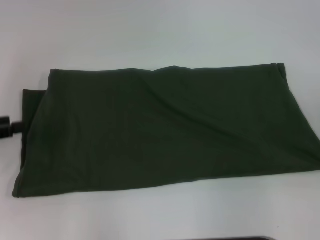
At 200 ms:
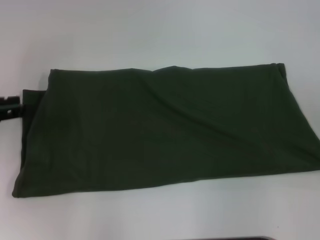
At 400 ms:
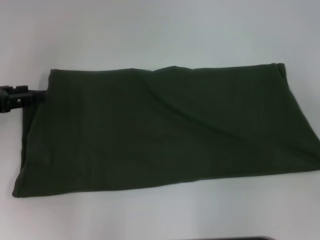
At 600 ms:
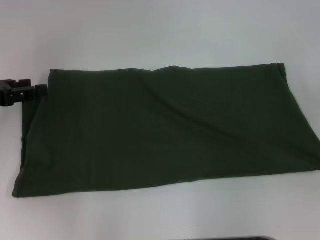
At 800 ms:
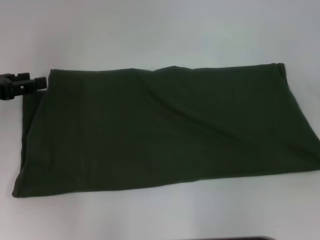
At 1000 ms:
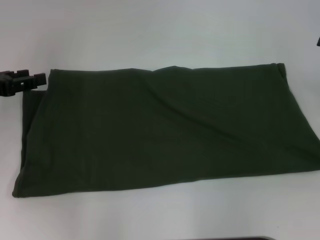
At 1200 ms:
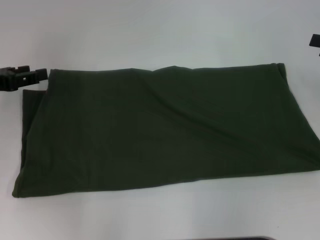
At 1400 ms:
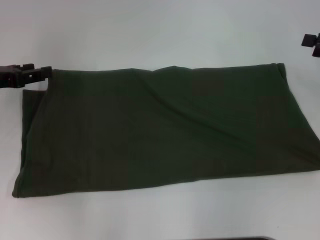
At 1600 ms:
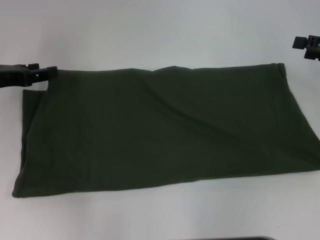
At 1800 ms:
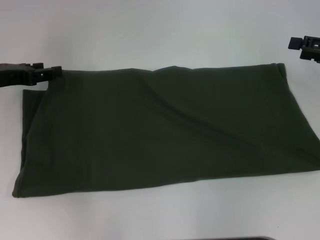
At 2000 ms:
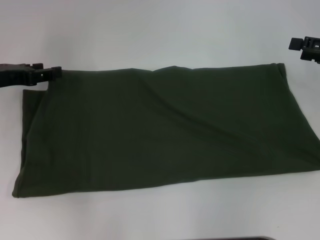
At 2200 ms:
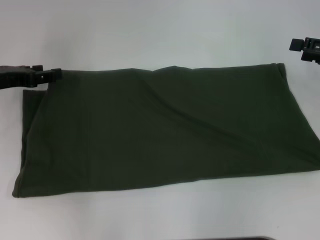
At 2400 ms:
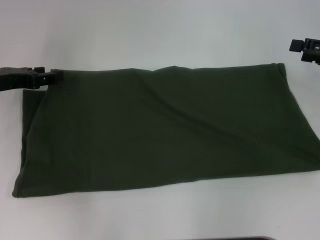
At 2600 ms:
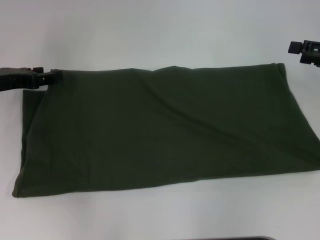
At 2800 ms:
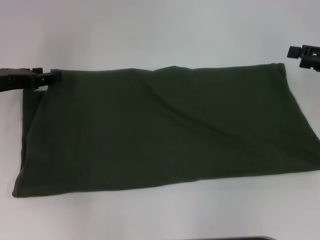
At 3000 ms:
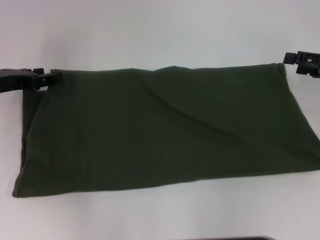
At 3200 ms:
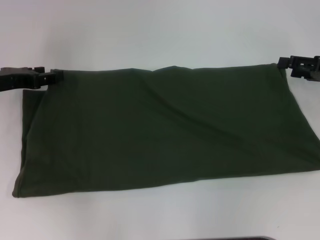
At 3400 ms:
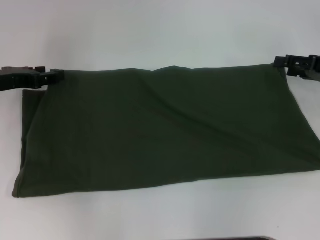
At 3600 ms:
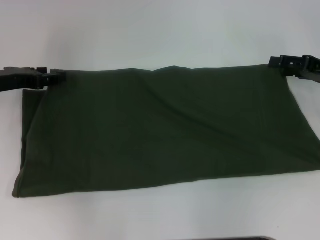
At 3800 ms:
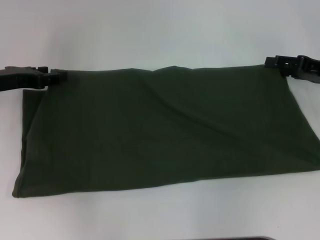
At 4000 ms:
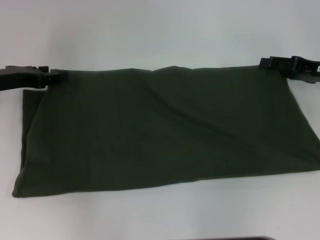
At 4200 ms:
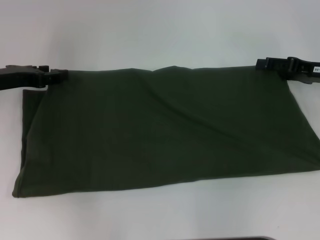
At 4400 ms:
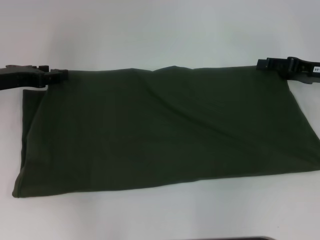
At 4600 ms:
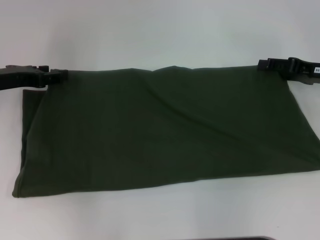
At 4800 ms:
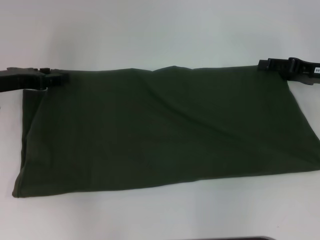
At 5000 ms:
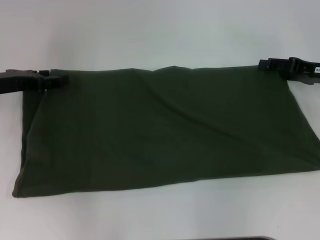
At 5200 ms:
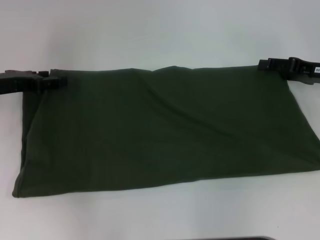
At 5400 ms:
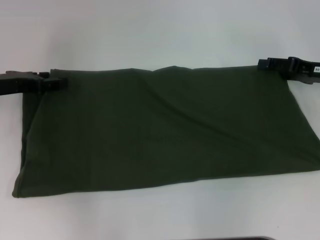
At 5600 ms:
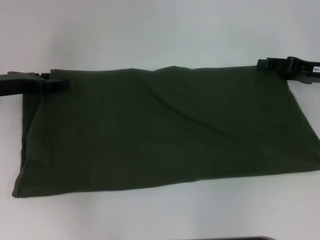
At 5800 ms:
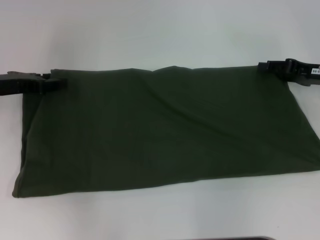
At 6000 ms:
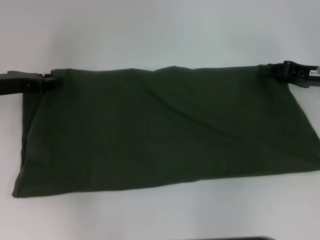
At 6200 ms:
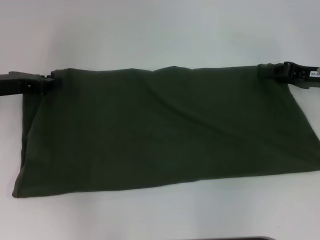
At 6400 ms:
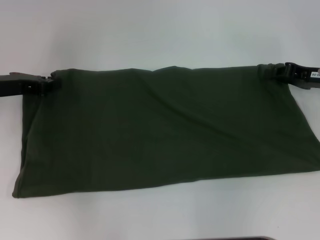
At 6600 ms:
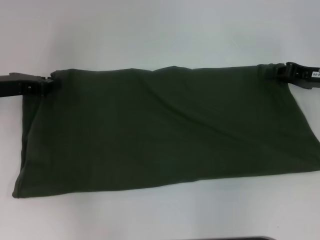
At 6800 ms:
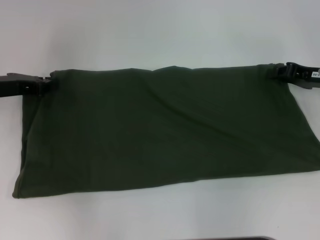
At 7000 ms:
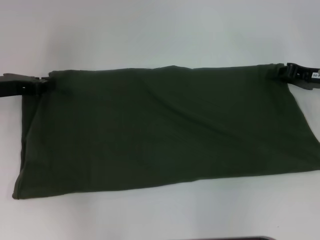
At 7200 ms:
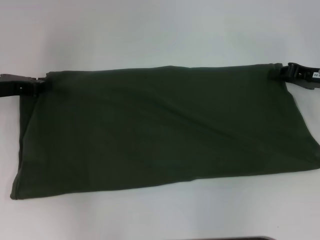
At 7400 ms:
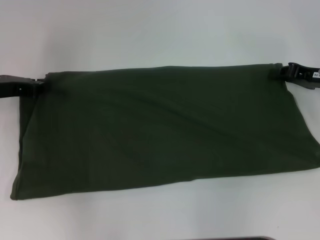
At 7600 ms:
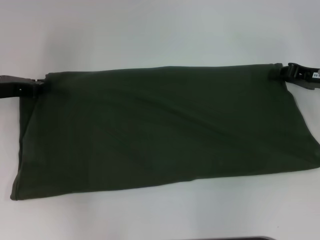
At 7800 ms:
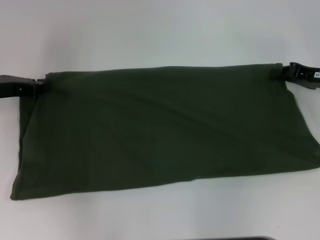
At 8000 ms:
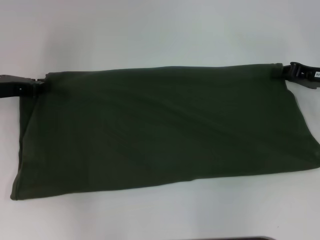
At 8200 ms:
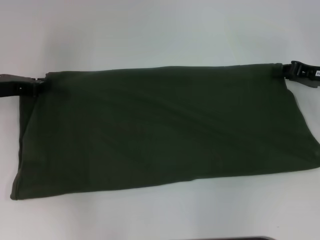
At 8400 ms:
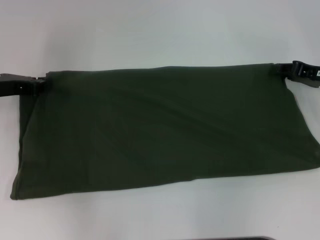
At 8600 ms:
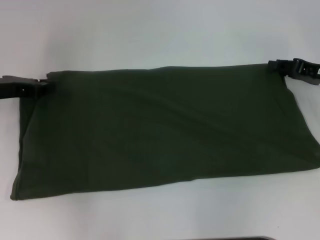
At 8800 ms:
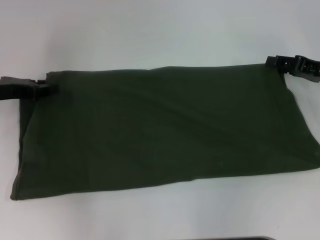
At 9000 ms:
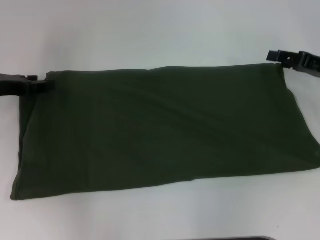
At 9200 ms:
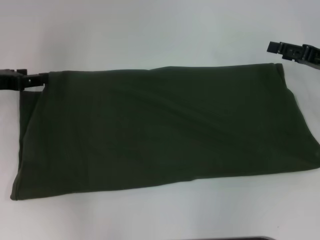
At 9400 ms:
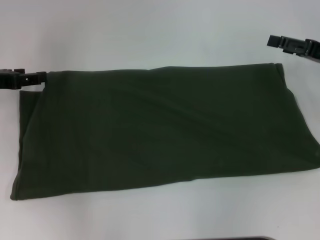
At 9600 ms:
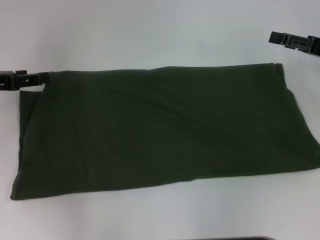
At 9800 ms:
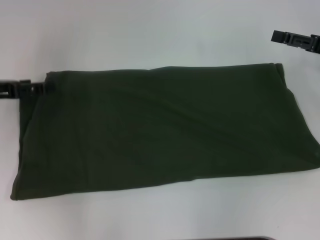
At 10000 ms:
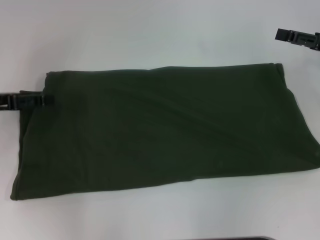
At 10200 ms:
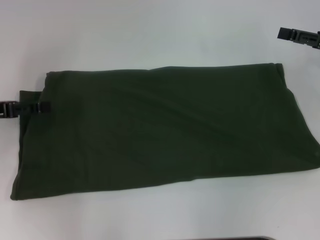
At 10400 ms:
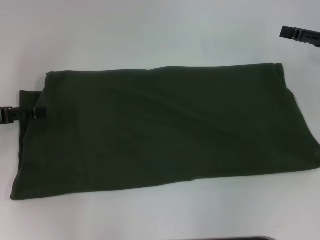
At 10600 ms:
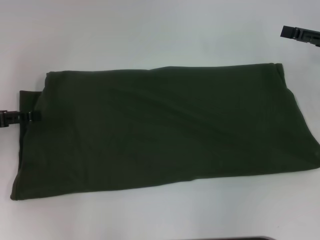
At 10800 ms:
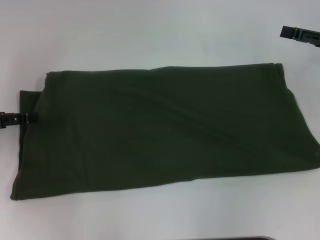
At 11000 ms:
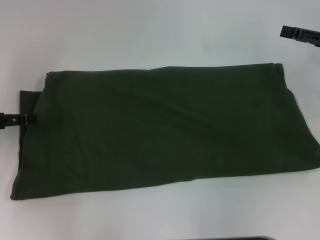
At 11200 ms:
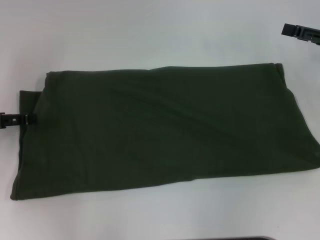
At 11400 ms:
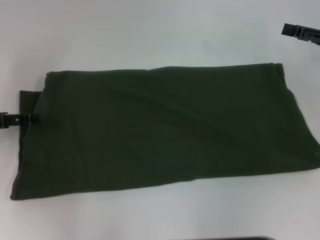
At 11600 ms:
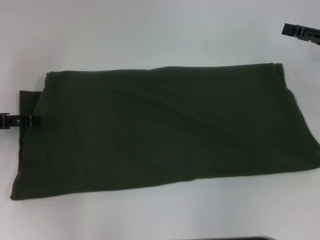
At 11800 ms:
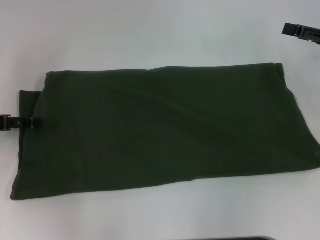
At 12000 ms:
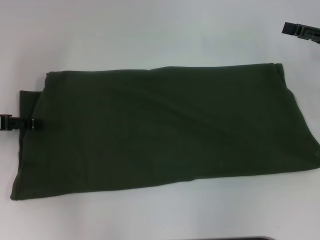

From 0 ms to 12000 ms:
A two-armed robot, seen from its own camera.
From 0 ms to 1600 ms: The right gripper moves forward, approximately 10 cm, while the left gripper moves forward and to the right, roughly 10 cm.
From 1600 ms to 3000 ms: There are only small adjustments of the grippers.
From 3000 ms to 4400 ms: The right gripper ends up about 5 cm from where it was.
From 4400 ms to 6000 ms: The right gripper closes its fingers.
From 6000 ms to 7600 ms: The left gripper closes its fingers; the right gripper closes up.
From 7600 ms to 9000 ms: The right gripper opens its fingers.
From 9000 ms to 10400 ms: The right gripper opens its fingers. The left gripper ends up some 5 cm from where it was, and opens.
From 10400 ms to 12000 ms: The grippers move only a little.

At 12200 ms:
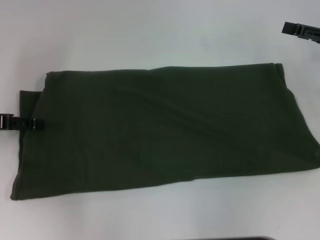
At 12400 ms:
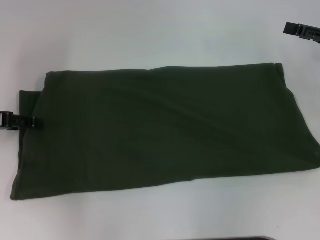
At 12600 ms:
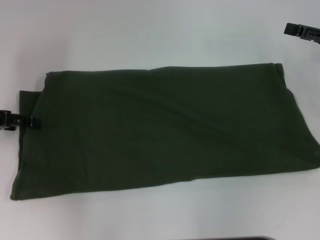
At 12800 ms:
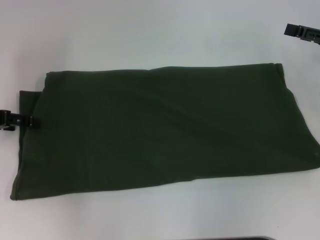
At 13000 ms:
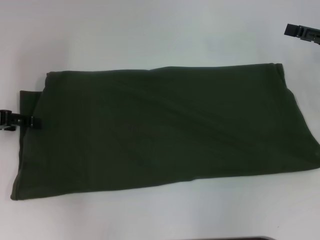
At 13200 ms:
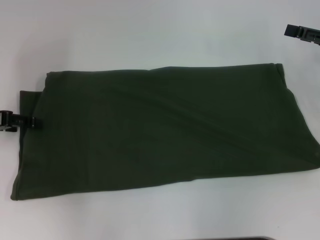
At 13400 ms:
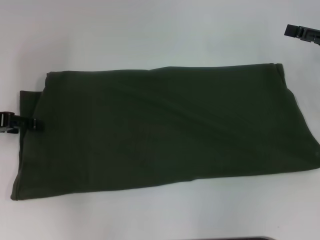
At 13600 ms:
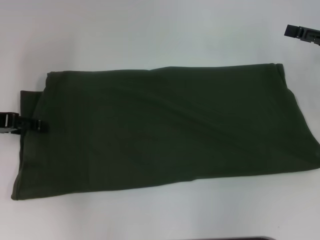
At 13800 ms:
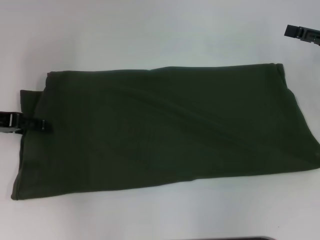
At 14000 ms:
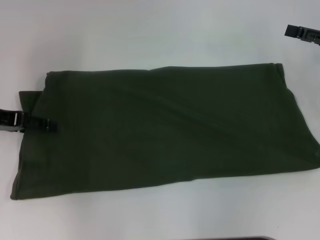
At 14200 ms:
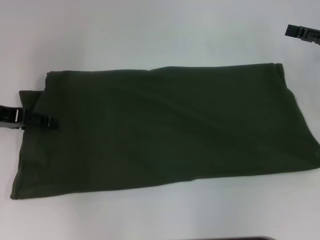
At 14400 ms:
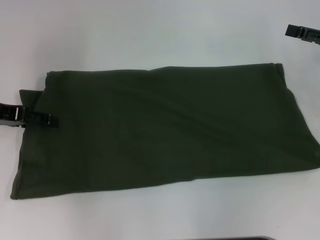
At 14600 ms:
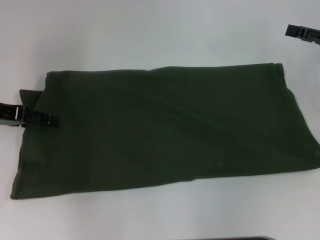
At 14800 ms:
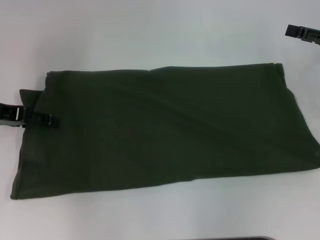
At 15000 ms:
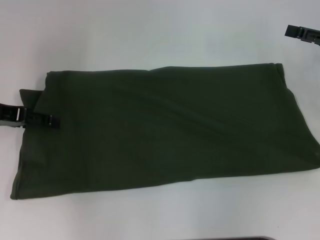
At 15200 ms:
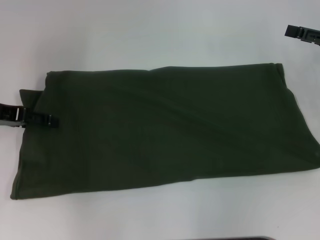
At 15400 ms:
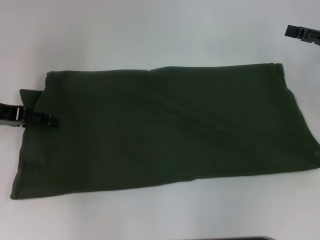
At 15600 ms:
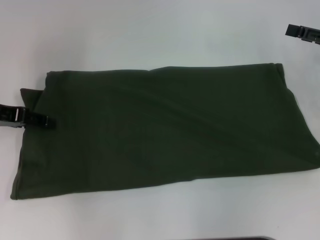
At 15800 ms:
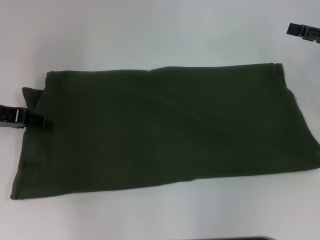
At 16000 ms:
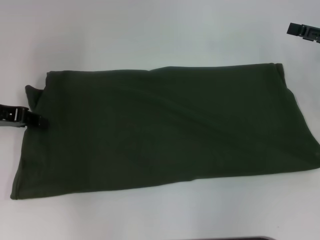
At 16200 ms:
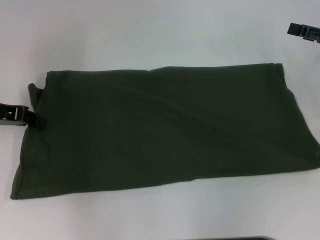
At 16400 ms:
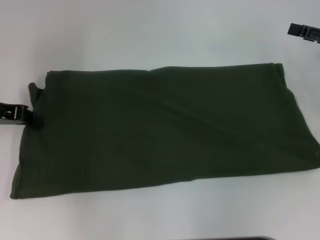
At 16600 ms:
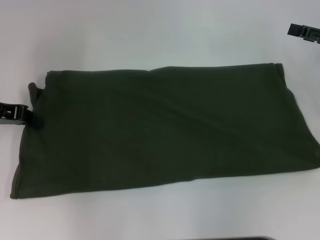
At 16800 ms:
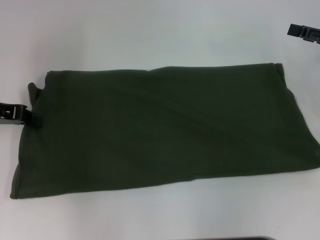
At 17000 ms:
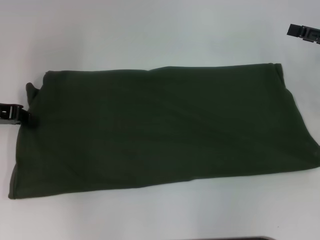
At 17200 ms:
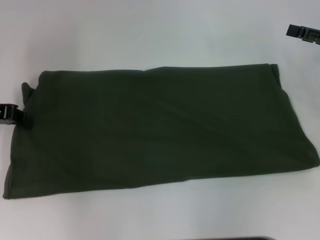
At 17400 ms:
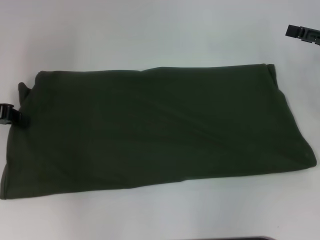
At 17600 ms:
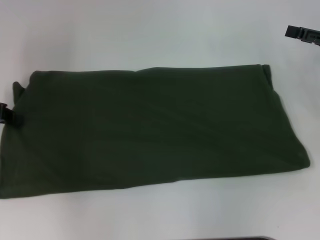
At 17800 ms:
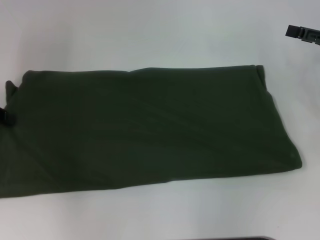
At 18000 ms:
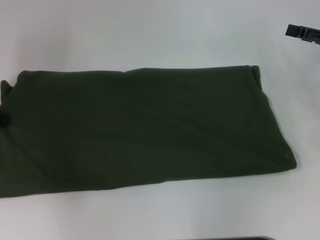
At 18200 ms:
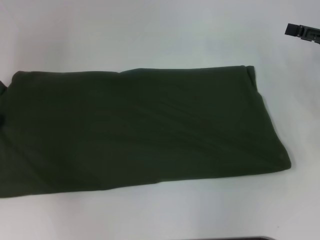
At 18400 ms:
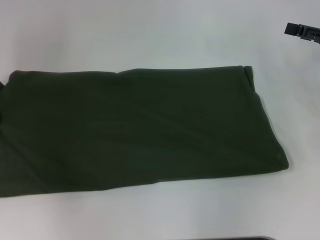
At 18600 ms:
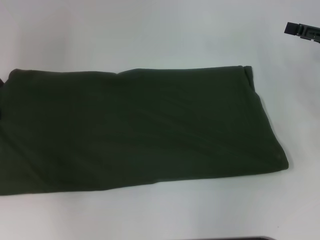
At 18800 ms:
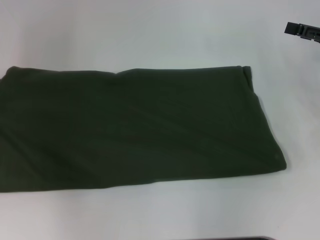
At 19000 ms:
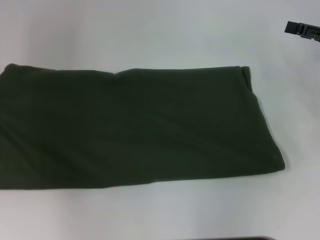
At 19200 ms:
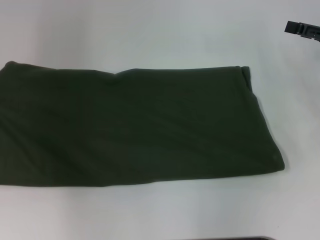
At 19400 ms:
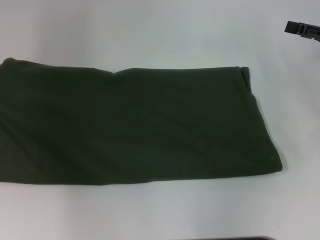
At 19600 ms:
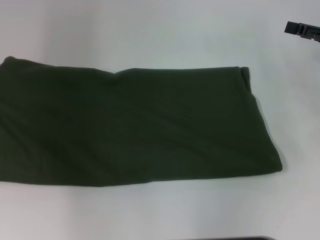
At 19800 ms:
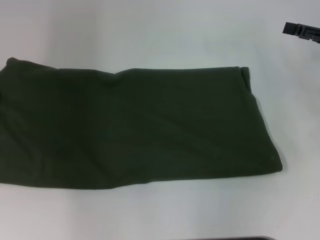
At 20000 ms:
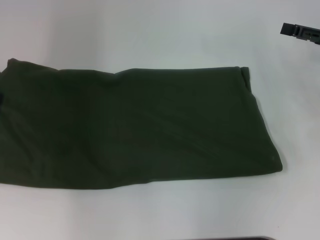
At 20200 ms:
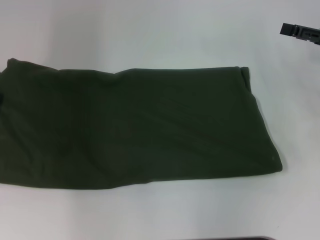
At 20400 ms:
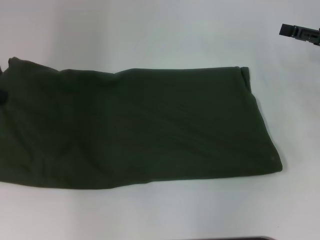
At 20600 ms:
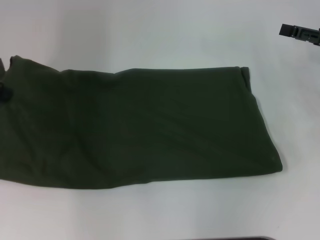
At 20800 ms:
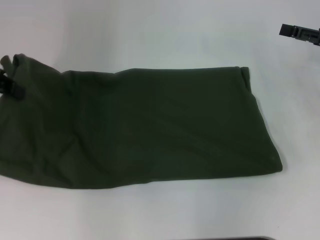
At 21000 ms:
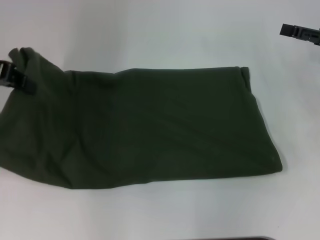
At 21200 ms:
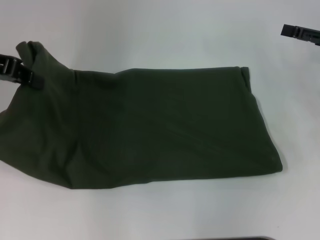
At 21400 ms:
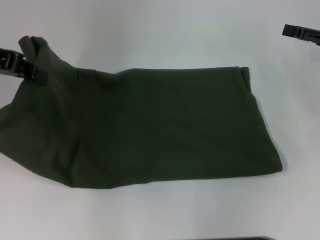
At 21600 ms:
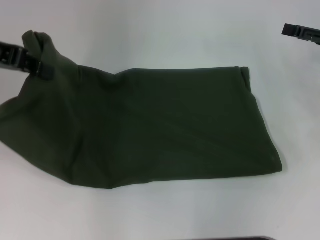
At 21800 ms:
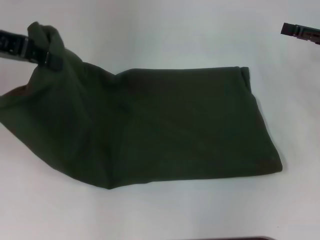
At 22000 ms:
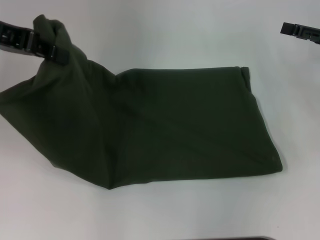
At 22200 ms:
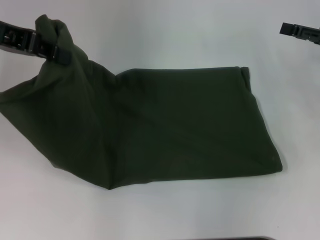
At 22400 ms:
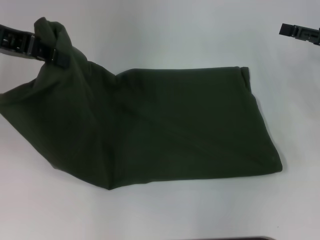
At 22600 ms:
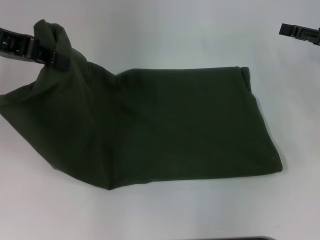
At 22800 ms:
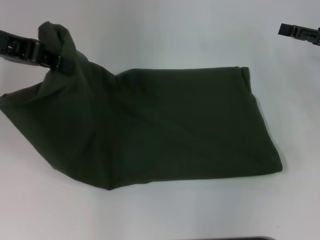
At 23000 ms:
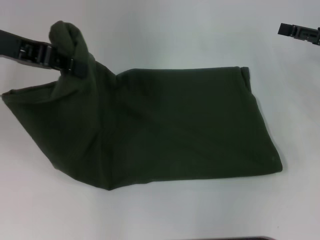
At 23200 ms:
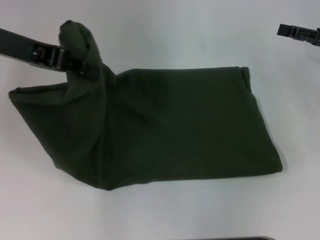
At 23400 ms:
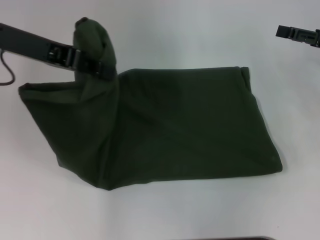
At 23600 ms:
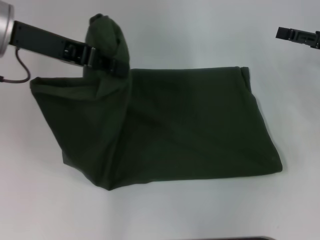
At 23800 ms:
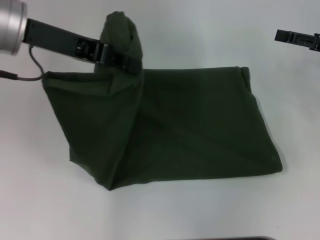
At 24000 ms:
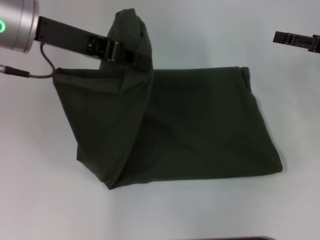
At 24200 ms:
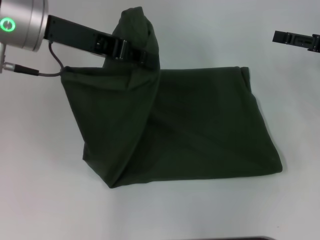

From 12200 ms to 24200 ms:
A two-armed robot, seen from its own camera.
From 12200 ms to 15200 ms: The grippers move only a little.
From 15200 ms to 16600 ms: The left gripper closes.
From 16600 ms to 18200 ms: The left gripper moves to the left, roughly 5 cm.
From 18200 ms to 19800 ms: The left gripper moves upward, roughly 5 cm.
From 19800 ms to 21200 ms: The left gripper moves to the right, approximately 5 cm.
From 21200 ms to 22600 ms: The grippers stay close to where they were, moving slightly.
From 22600 ms to 24200 ms: The left gripper moves to the right, about 10 cm.
